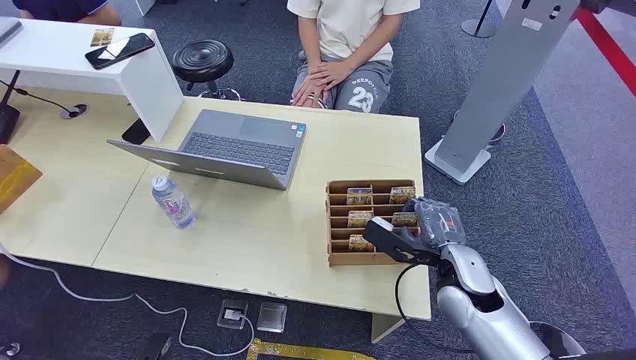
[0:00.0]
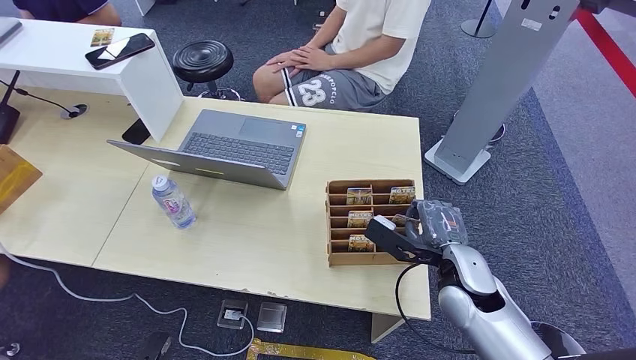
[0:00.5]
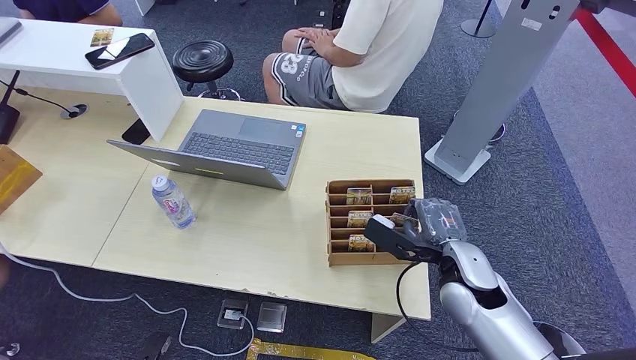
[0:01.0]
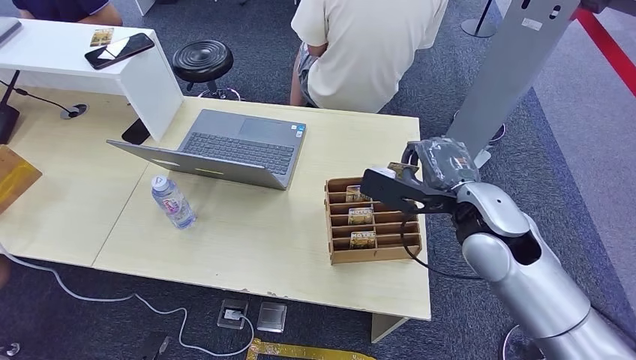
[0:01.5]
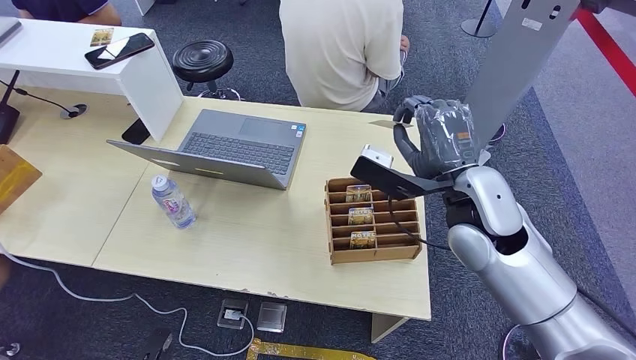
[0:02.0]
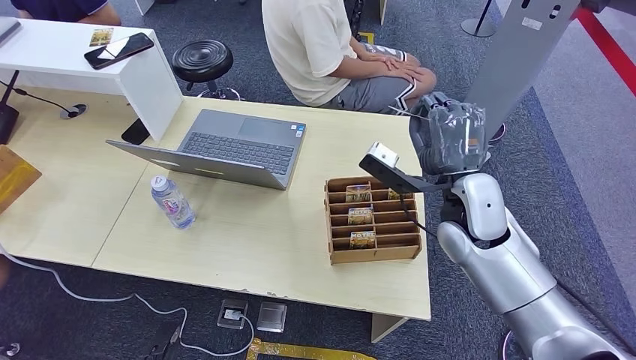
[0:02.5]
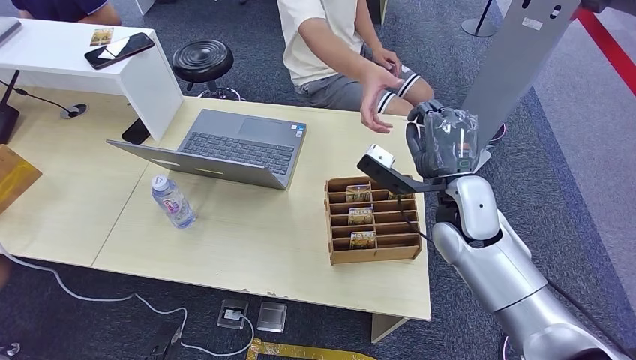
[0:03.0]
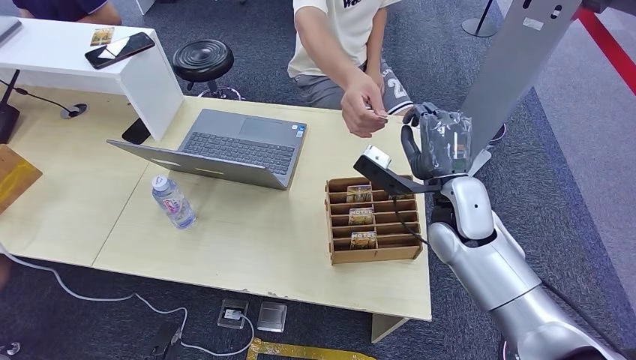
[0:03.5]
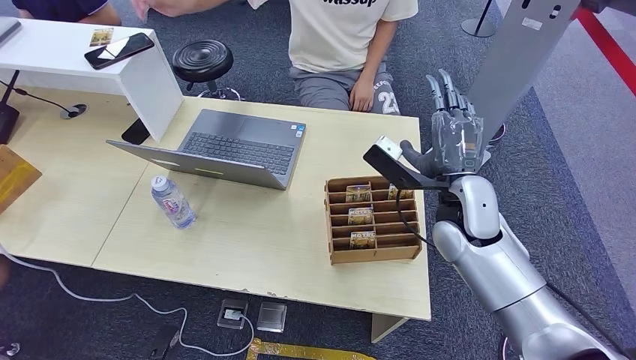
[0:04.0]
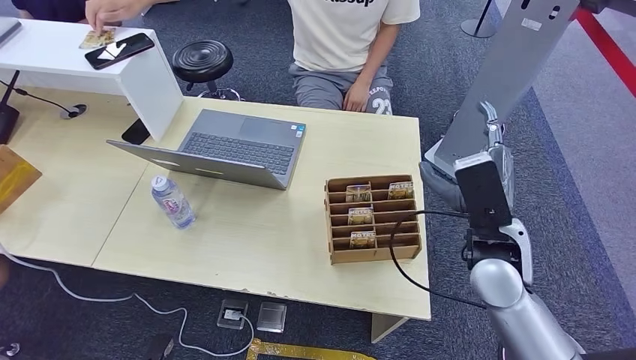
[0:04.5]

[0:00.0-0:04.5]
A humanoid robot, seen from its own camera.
Step, 0:00.0 to 0:01.0: Pick up the key card from the card box.
Step, 0:02.0 to 0:04.5: Hand the key card to the target.
0:02.0 to 0:04.5: The right hand heads downward, covering roughly 5 cm.
